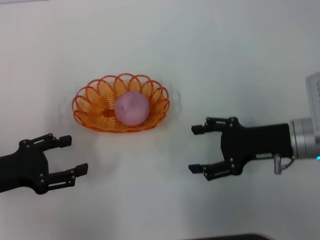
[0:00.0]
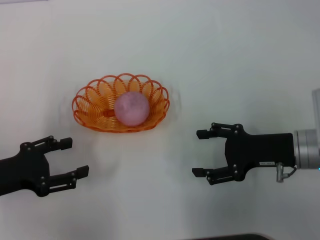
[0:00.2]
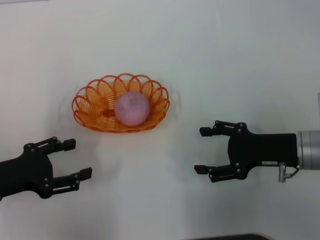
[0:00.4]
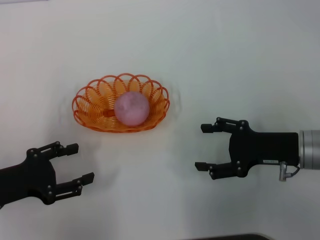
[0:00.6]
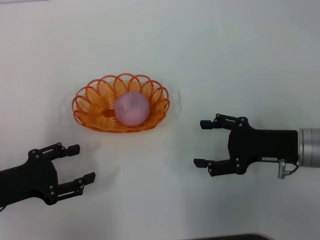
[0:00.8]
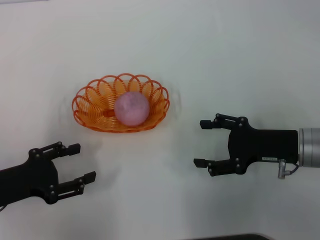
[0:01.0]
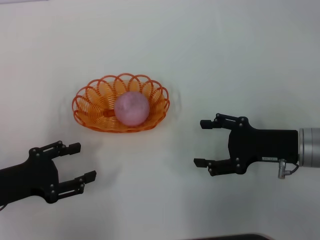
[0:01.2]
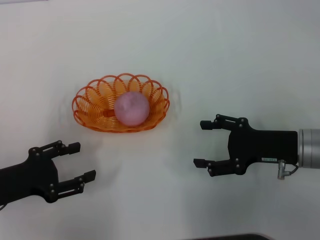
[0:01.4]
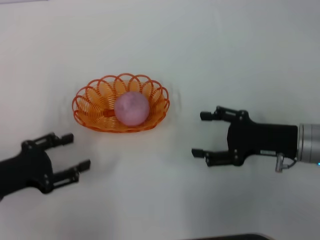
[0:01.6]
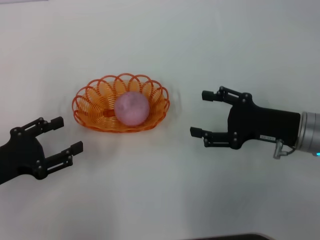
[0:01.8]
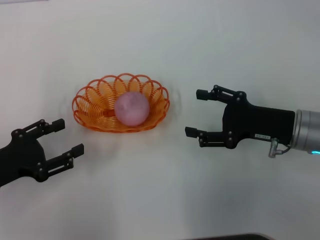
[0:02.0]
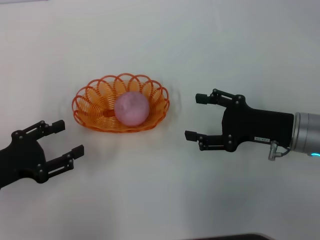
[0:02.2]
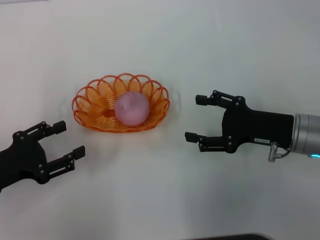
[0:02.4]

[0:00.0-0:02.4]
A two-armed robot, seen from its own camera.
0:00.0 to 0:02.4: The grippers make only small movements.
